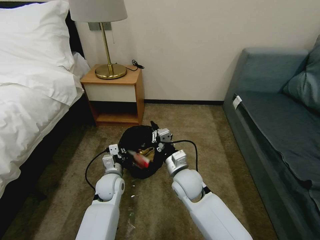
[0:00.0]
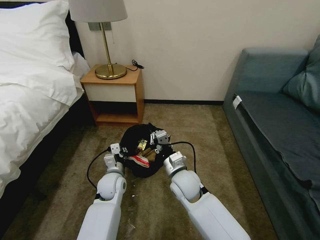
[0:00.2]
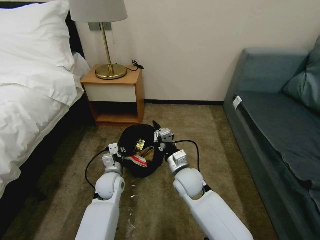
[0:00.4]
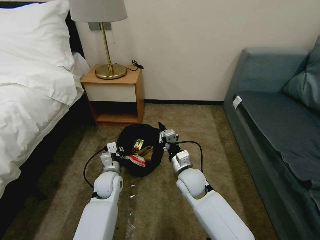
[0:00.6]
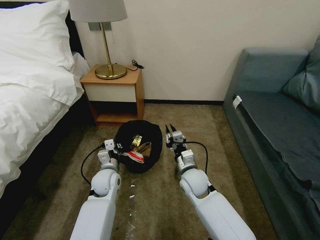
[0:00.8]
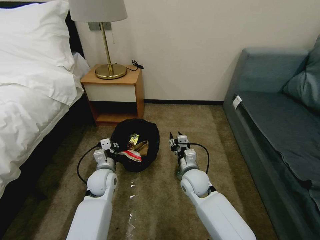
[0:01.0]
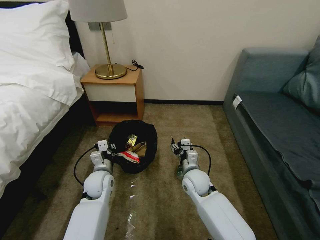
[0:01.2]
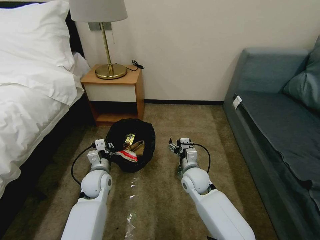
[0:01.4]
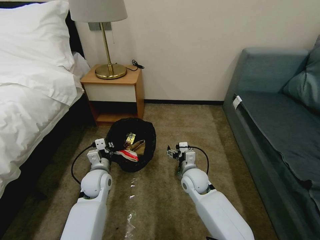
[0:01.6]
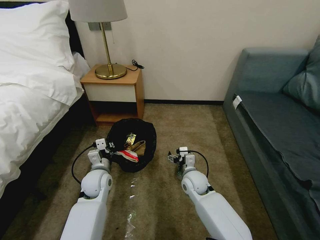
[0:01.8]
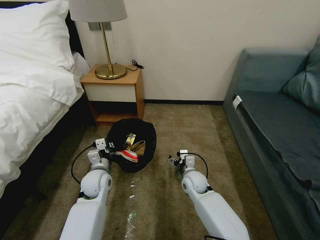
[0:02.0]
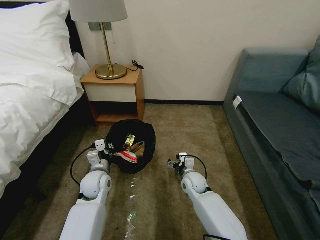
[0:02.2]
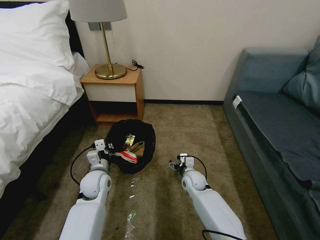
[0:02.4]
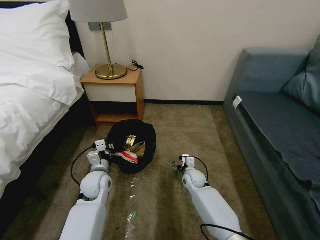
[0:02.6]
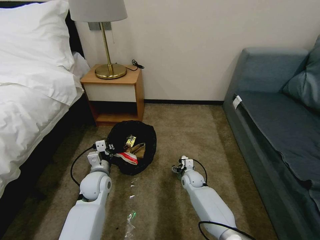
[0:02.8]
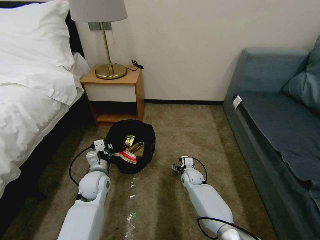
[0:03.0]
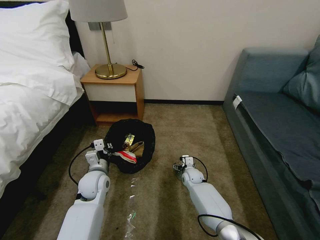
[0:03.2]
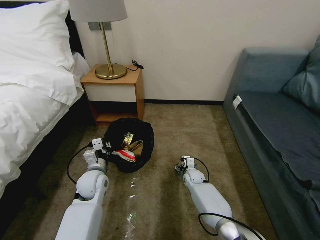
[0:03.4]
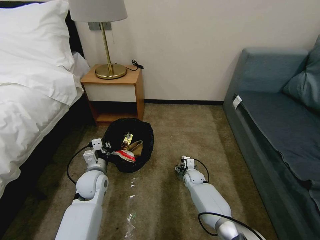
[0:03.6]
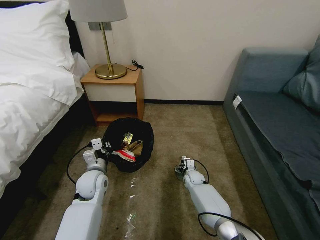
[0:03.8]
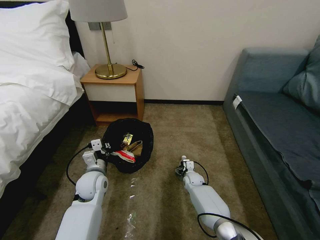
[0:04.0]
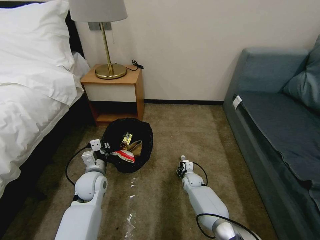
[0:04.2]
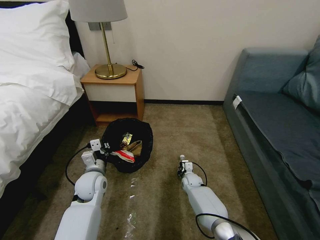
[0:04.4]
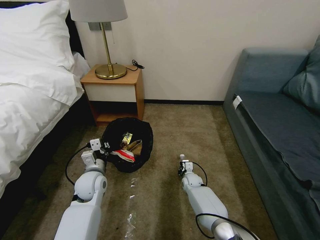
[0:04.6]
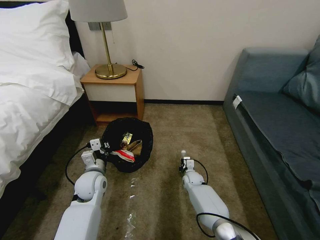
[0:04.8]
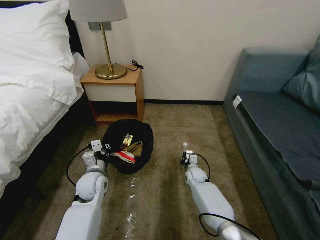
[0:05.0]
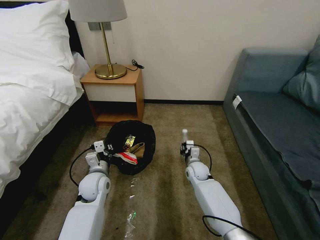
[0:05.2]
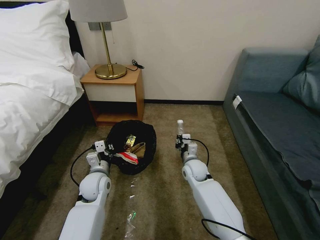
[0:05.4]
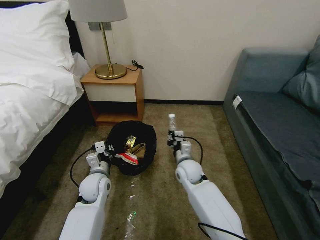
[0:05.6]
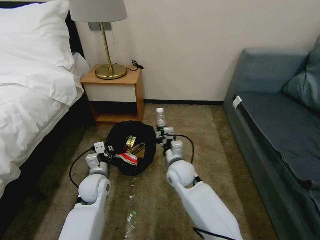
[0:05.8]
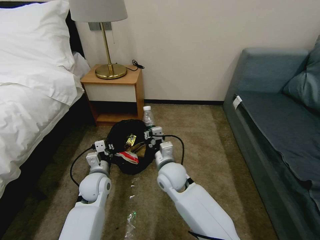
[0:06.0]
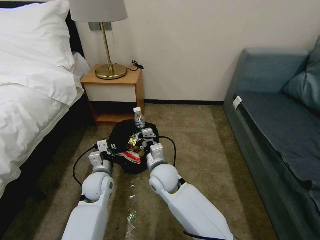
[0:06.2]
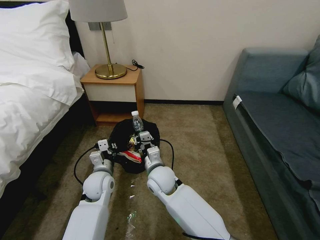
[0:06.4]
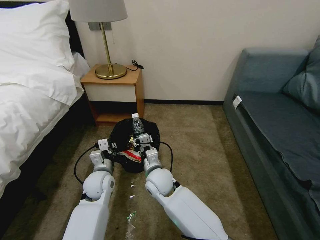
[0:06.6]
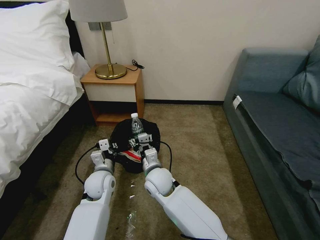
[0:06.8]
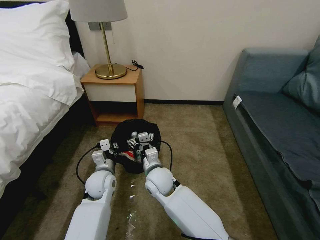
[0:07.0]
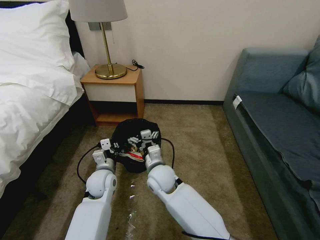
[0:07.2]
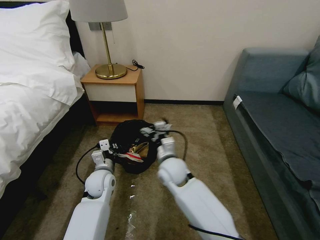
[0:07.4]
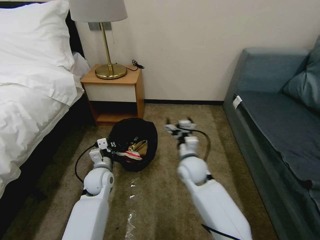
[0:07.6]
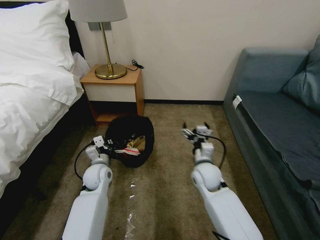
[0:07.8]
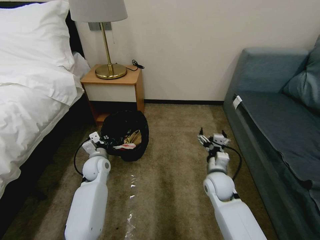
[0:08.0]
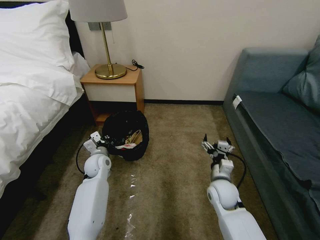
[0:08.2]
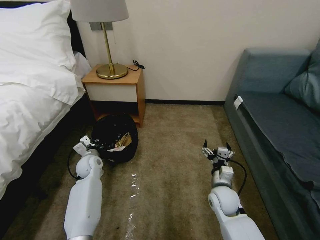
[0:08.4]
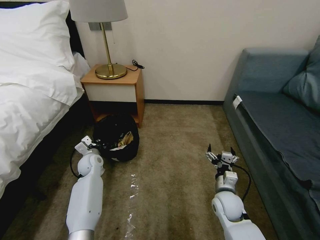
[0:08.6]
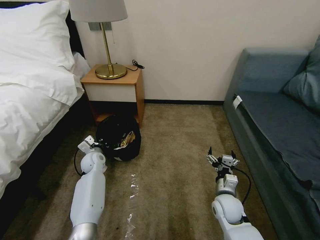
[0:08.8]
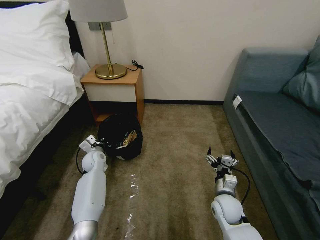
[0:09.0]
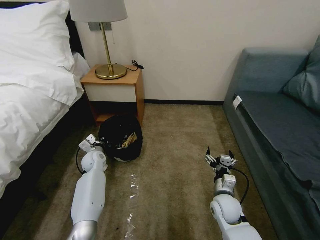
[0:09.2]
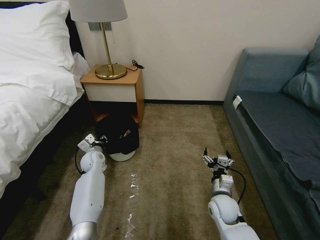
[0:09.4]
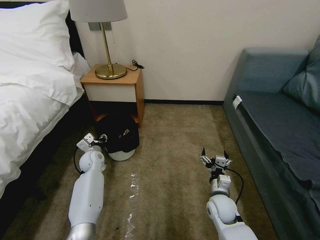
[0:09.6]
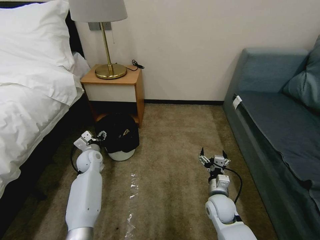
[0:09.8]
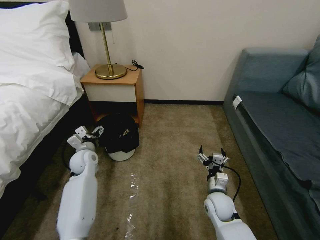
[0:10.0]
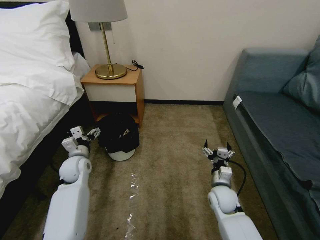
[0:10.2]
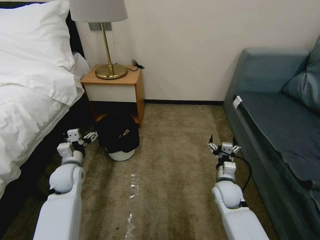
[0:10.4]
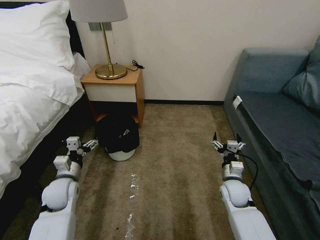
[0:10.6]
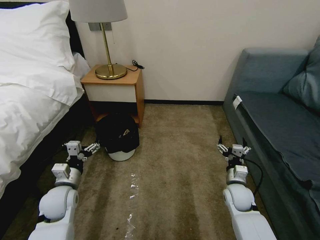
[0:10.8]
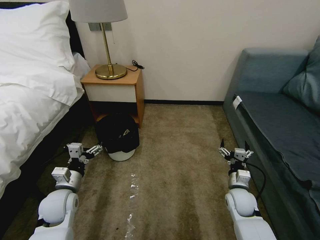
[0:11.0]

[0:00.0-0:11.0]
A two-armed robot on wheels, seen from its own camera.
Task of the whole recording: Pick up the trash bin, then pick up the garbage on the floor and place it into the trash bin.
0:00.0 to 0:01.6: The right gripper heads downward, covering some 5 cm, and opens. Meanwhile the left gripper ends up some 5 cm from where it was.
0:01.6 to 0:03.2: The right gripper is displaced downward and forward by roughly 15 cm.
0:03.2 to 0:04.8: The right gripper closes its fingers.
0:04.8 to 0:06.2: The right gripper travels upward, to the left and backward by approximately 30 cm.
0:06.2 to 0:07.8: The right gripper is displaced to the right by approximately 15 cm, and opens up; the left gripper shifts by approximately 5 cm.
0:07.8 to 0:09.4: The left gripper heads forward and to the left, covering some 10 cm. Meanwhile the right gripper goes some 10 cm backward and downward.
0:09.4 to 0:11.0: The right gripper is displaced to the right by approximately 5 cm. Meanwhile the left gripper travels backward by roughly 20 cm, and opens its fingers.
